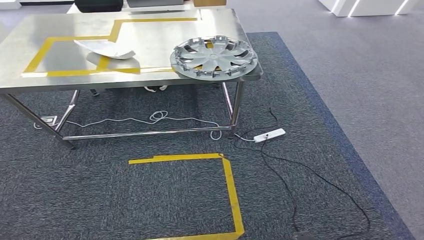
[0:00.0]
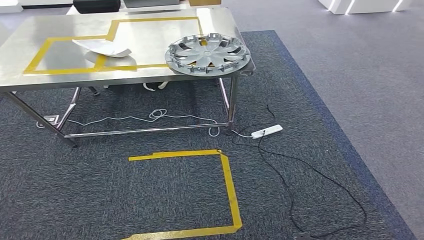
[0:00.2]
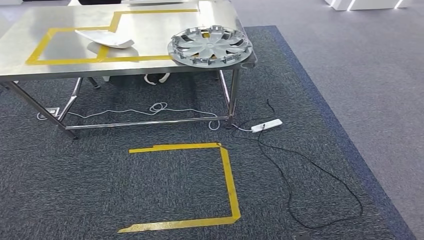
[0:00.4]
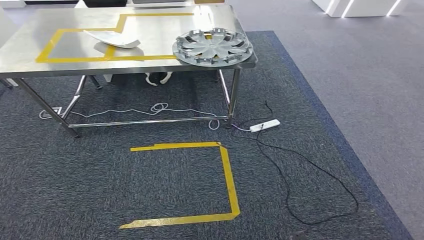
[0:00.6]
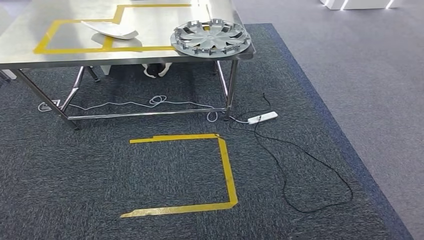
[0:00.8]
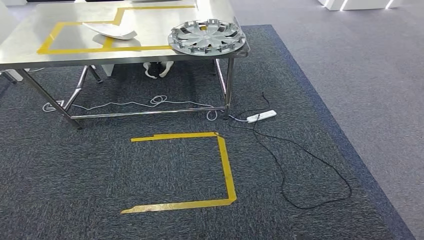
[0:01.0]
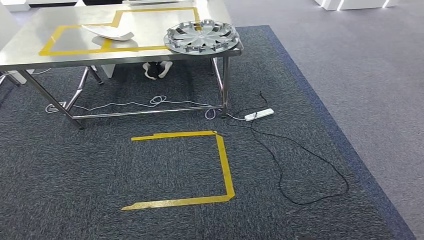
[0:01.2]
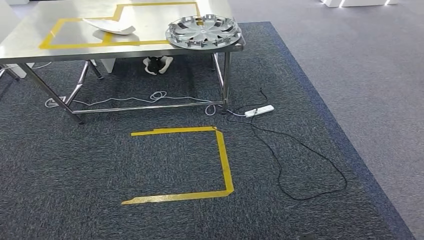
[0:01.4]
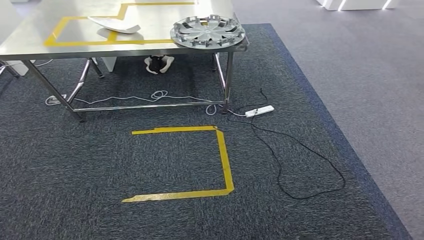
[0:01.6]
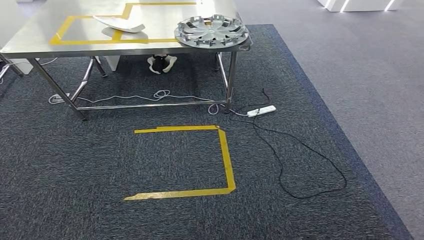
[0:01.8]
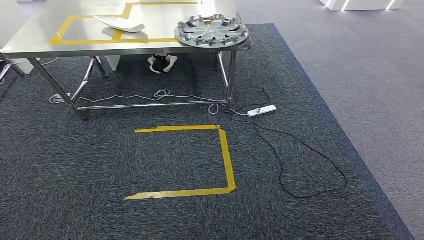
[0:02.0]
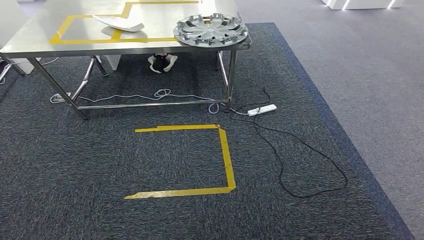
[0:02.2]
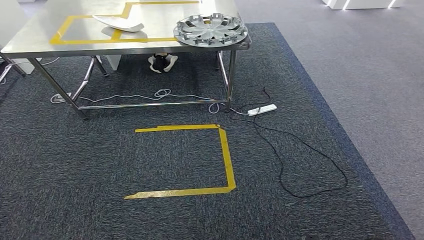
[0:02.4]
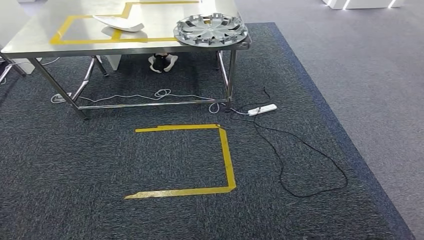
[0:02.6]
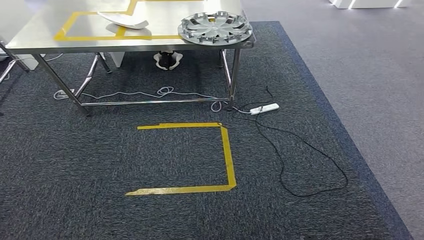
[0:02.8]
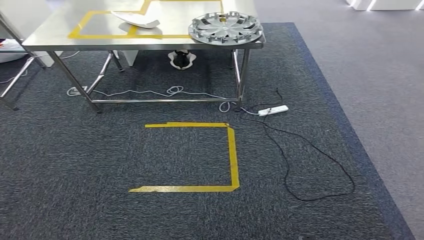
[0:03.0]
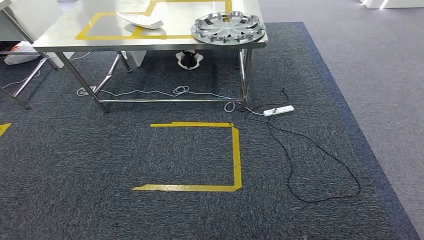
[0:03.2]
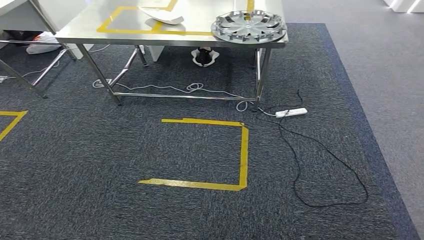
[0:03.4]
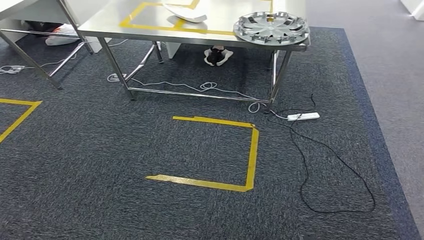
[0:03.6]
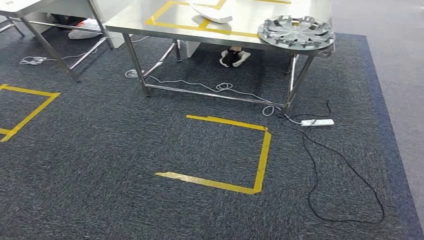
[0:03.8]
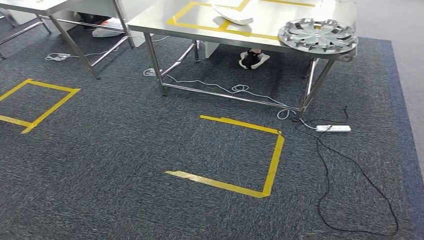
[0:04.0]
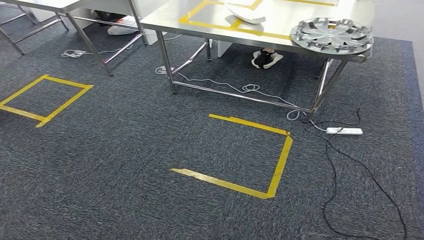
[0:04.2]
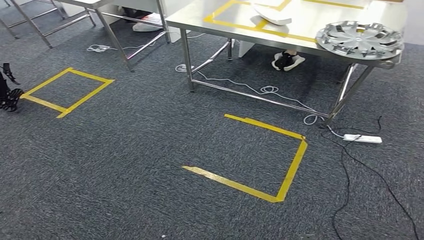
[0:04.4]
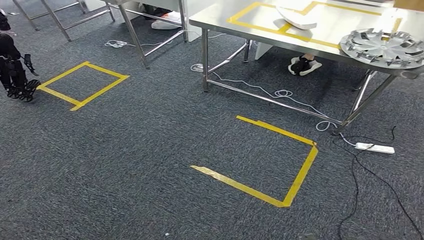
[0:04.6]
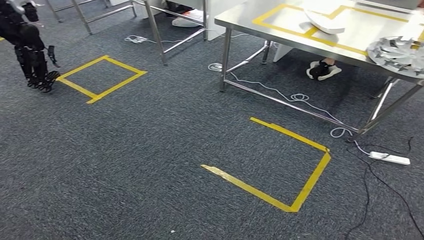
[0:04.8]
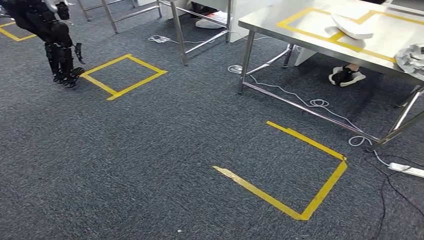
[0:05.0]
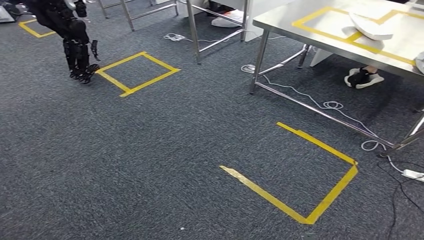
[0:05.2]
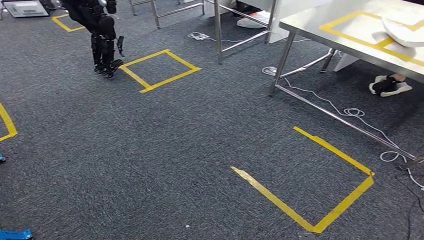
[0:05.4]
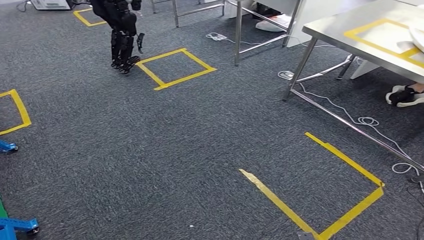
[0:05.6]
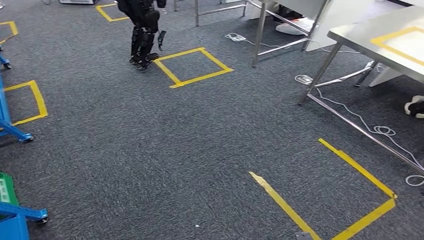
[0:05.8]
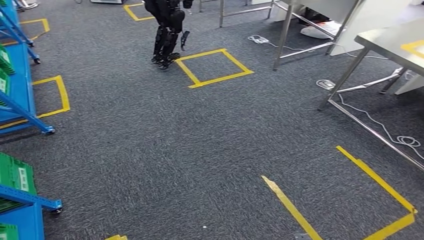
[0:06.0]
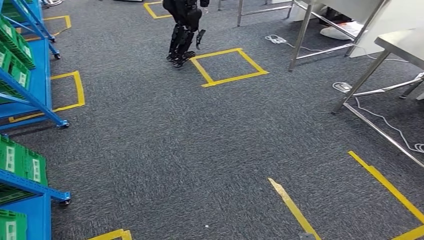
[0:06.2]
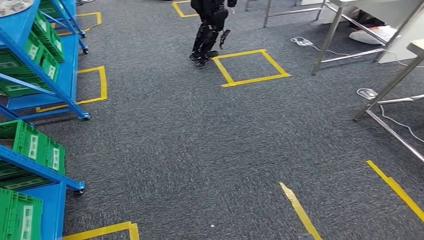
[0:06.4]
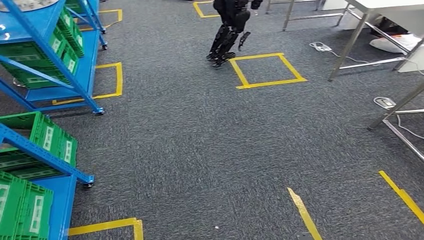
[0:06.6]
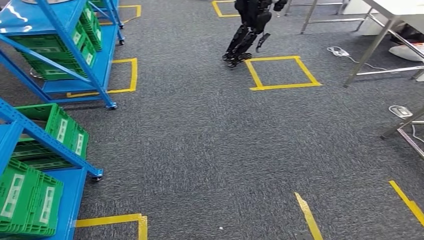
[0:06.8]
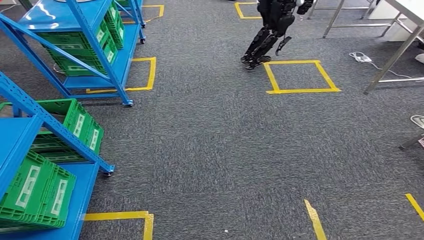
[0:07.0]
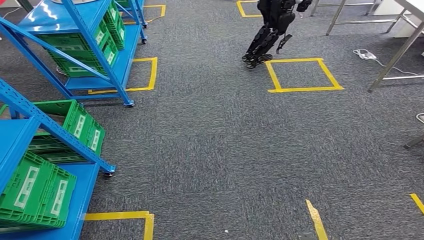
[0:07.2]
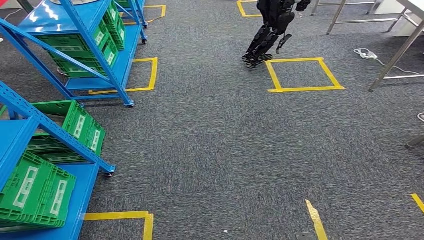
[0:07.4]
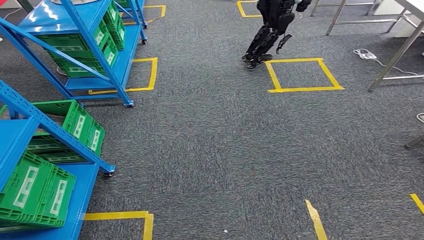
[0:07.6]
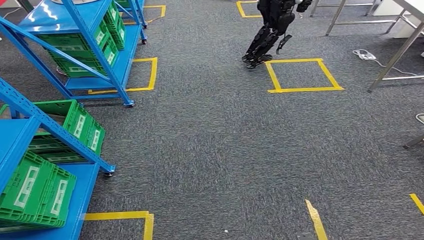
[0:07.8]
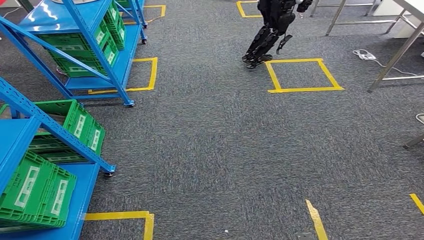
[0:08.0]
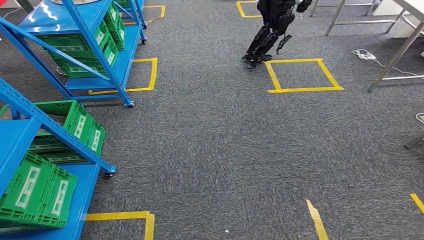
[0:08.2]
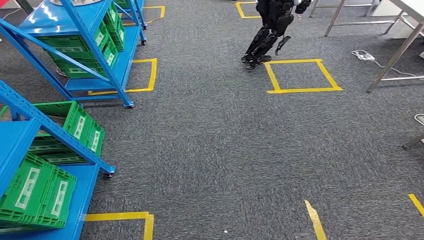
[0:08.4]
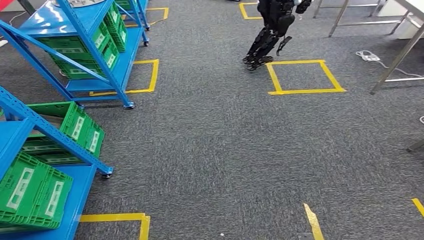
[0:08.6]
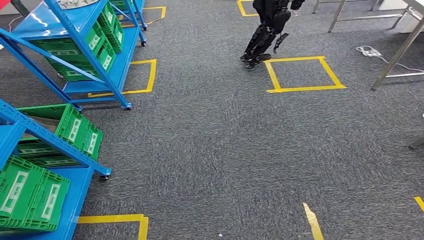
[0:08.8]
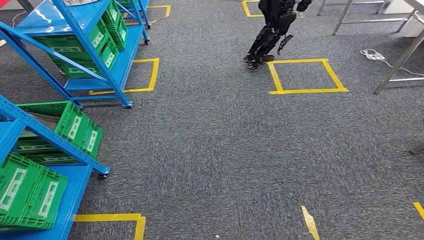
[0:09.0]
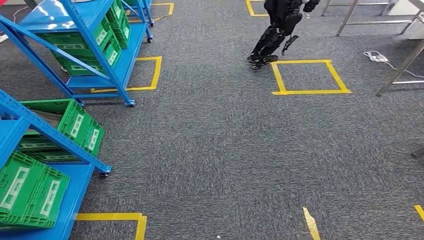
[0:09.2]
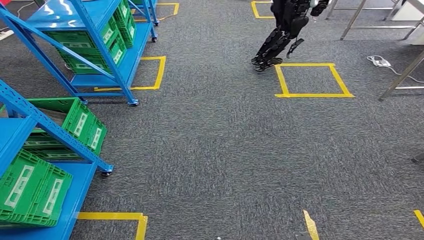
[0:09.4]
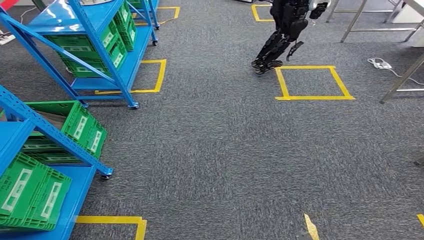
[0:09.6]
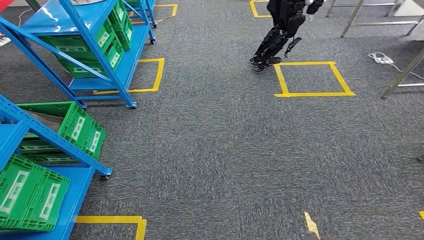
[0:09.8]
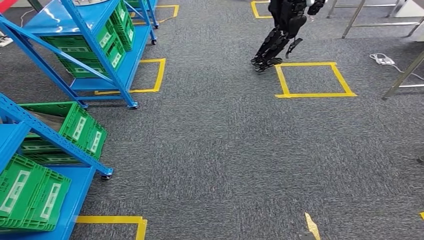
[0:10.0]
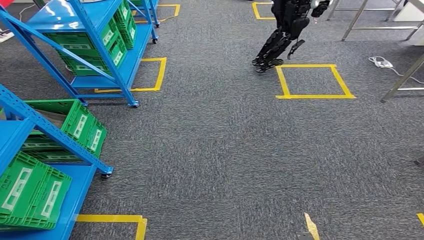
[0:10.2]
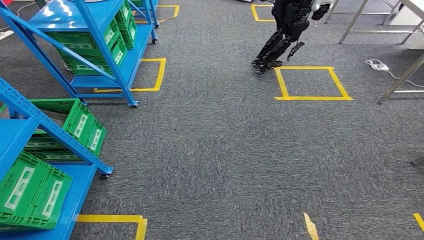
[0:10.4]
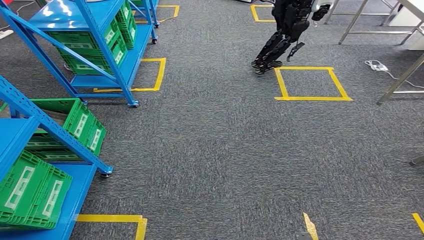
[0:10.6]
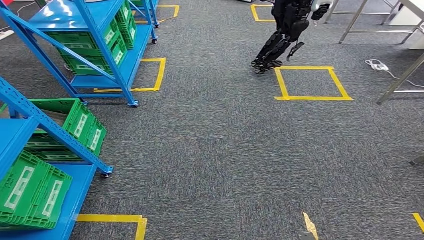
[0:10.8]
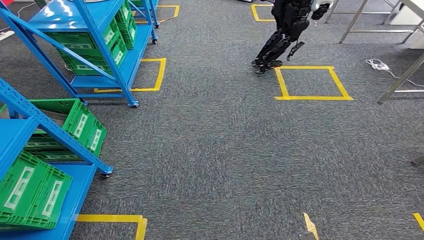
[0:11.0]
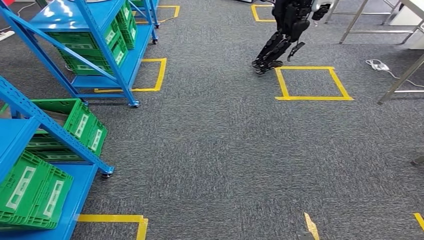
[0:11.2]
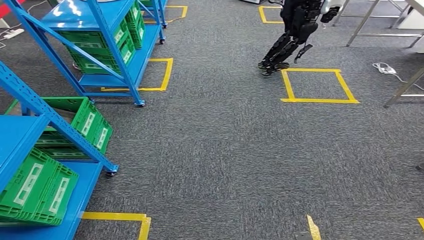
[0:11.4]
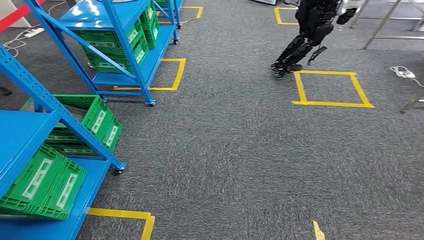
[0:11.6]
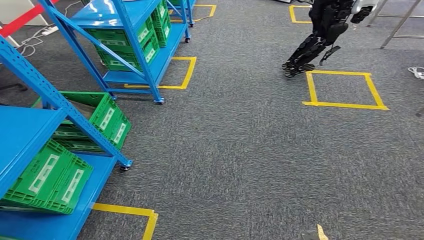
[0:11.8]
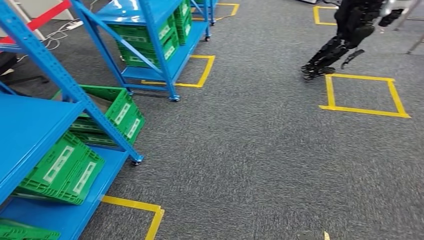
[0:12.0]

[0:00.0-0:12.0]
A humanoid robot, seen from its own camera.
0:07.6 to 0:09.0: Both hands stay about where they are.

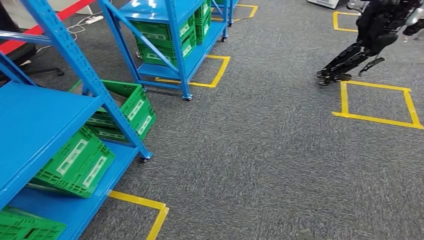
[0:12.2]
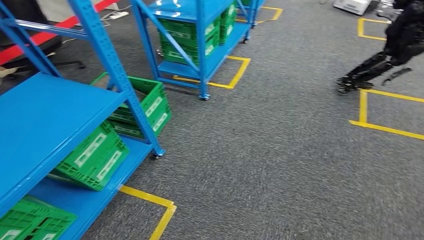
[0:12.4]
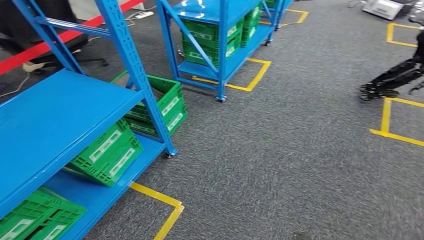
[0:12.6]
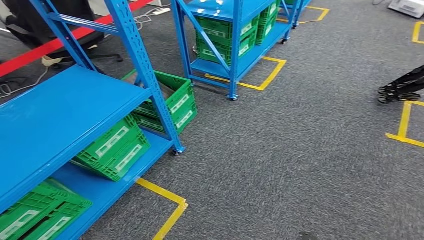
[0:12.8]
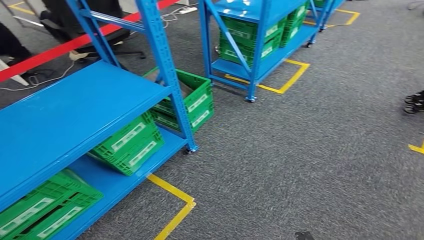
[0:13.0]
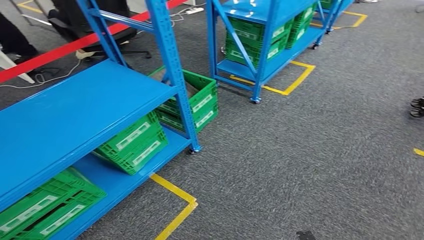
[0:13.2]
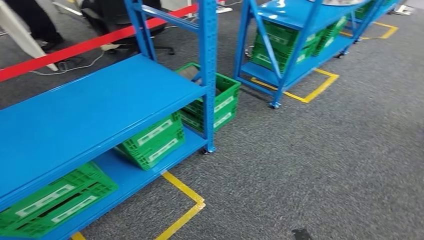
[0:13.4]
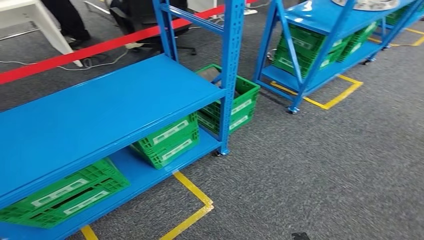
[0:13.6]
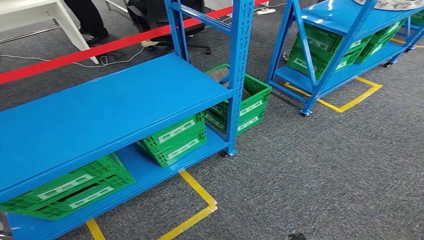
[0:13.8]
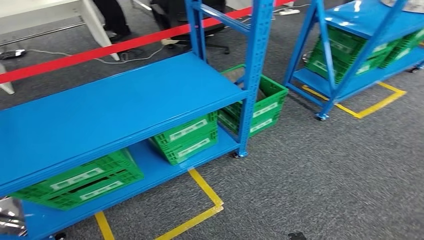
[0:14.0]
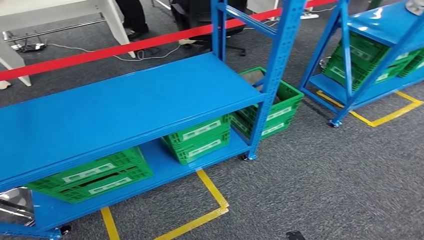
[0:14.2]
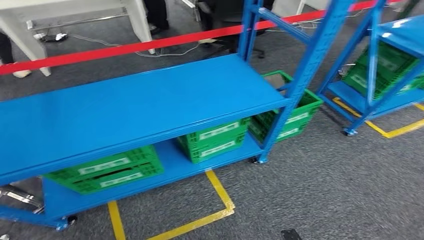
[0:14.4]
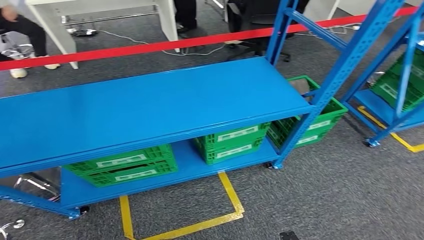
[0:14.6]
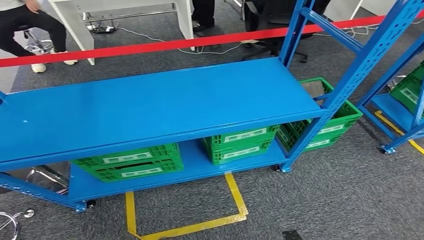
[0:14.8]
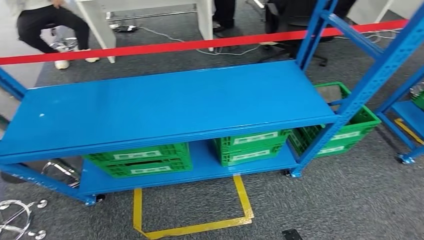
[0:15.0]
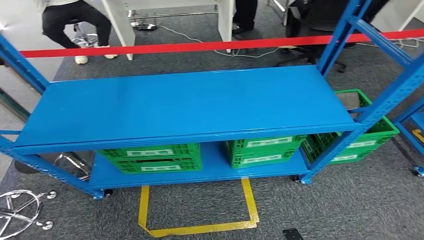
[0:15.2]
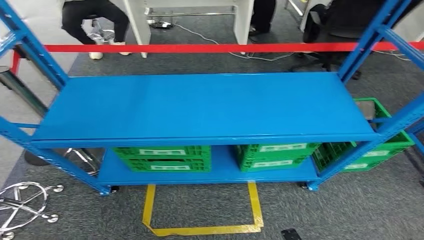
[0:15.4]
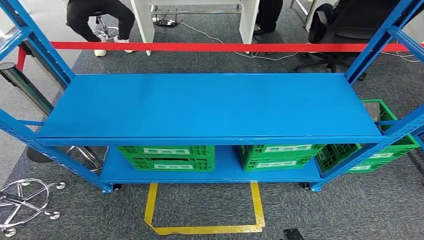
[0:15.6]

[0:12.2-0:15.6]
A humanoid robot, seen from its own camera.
Step, 0:12.2 to 0:15.6: Return to the initial position at the workbench.
